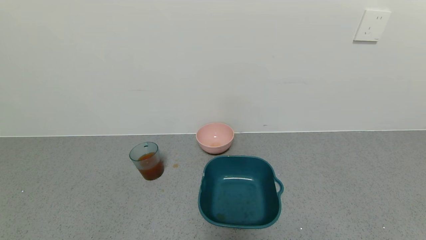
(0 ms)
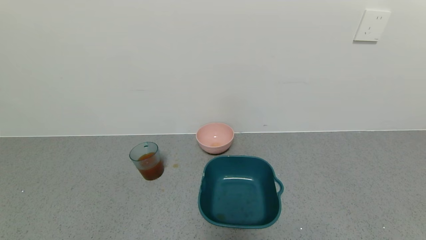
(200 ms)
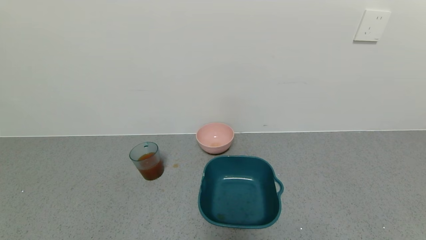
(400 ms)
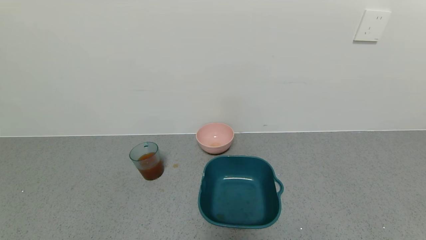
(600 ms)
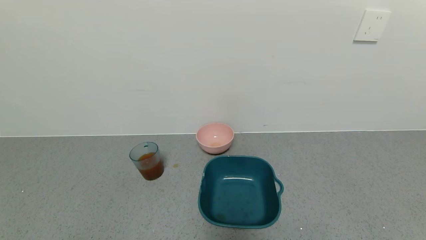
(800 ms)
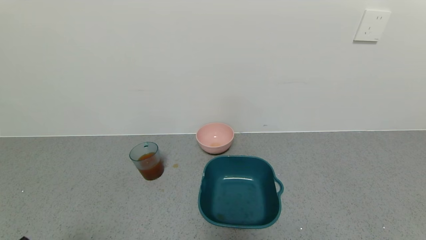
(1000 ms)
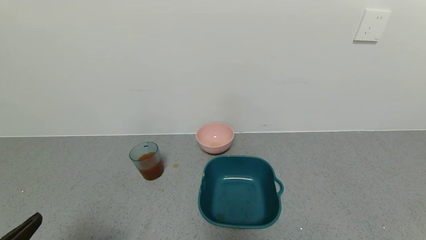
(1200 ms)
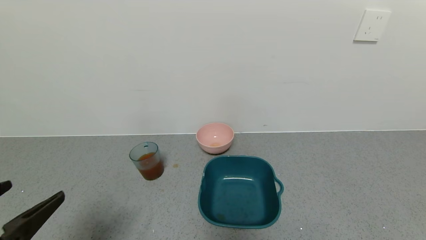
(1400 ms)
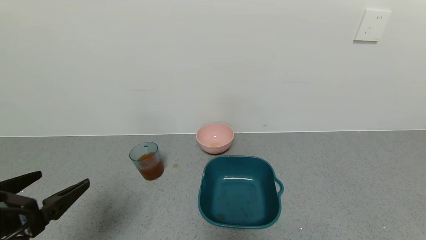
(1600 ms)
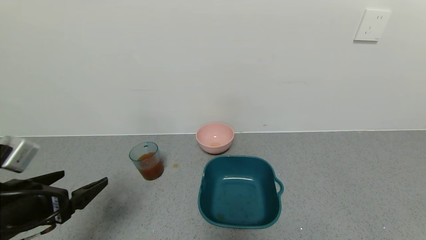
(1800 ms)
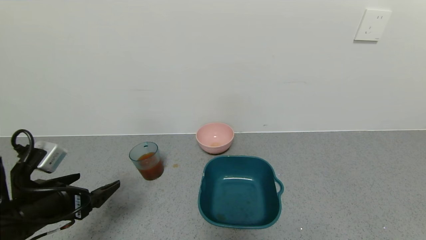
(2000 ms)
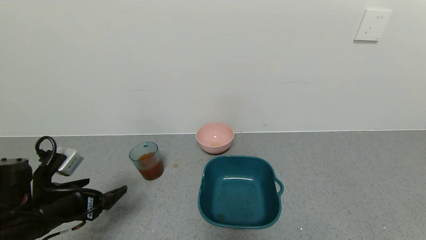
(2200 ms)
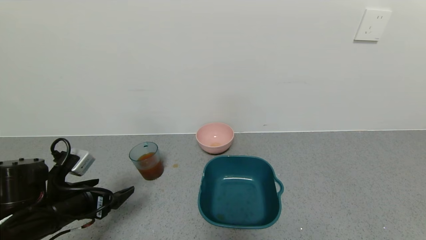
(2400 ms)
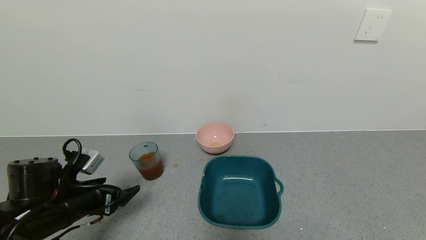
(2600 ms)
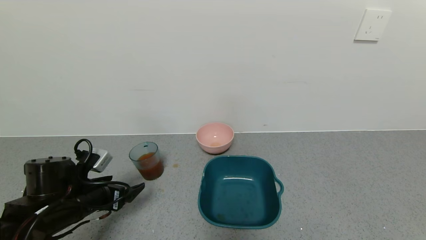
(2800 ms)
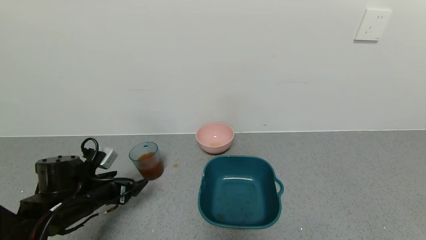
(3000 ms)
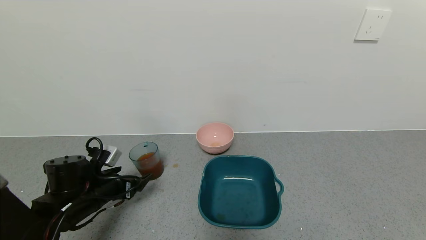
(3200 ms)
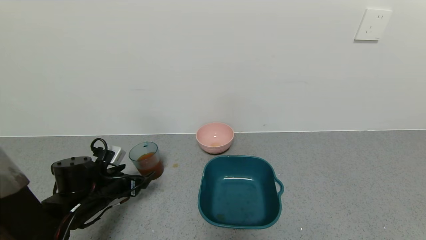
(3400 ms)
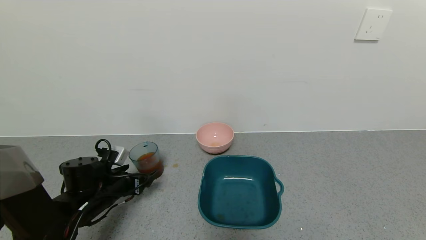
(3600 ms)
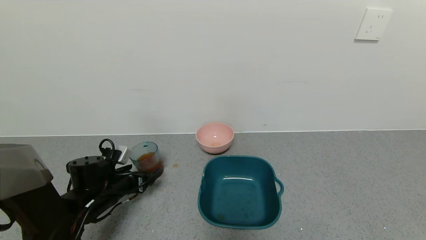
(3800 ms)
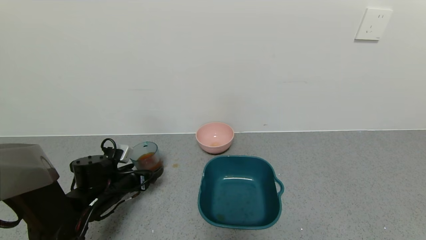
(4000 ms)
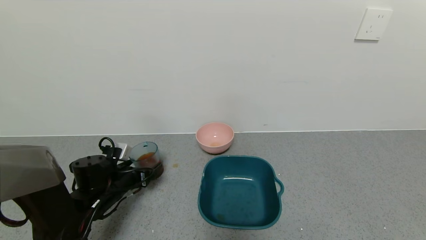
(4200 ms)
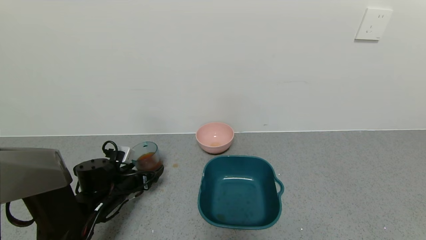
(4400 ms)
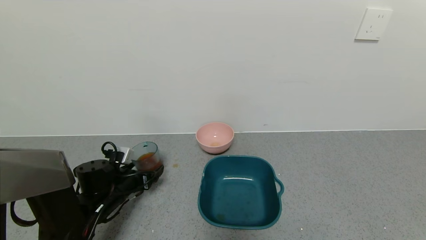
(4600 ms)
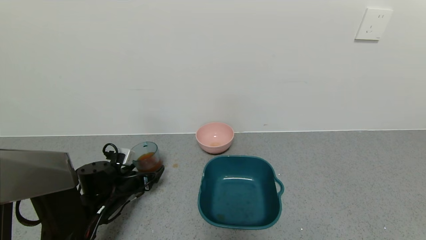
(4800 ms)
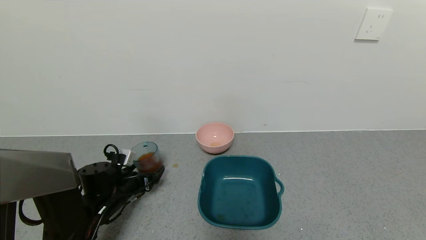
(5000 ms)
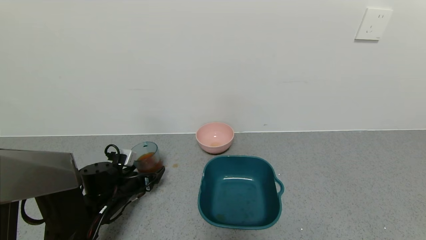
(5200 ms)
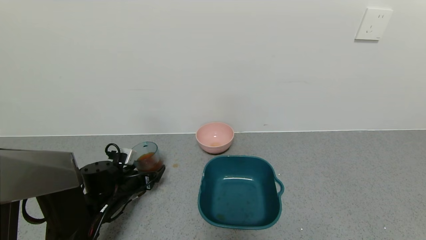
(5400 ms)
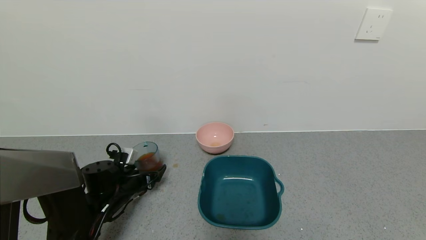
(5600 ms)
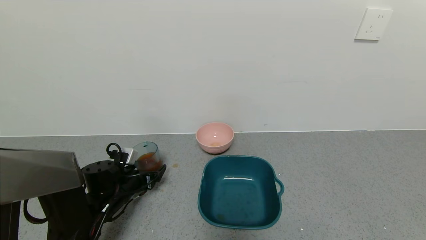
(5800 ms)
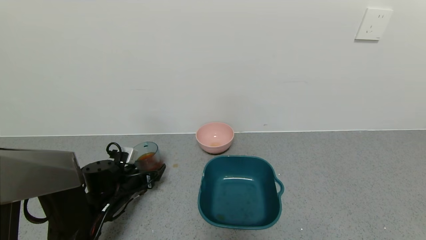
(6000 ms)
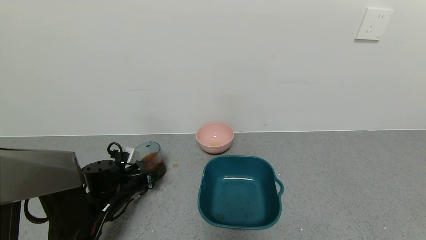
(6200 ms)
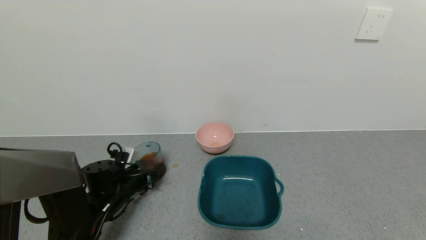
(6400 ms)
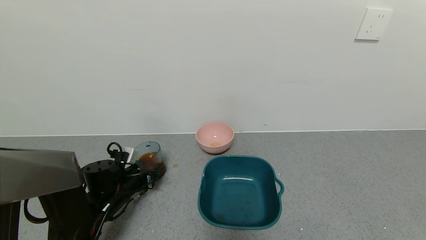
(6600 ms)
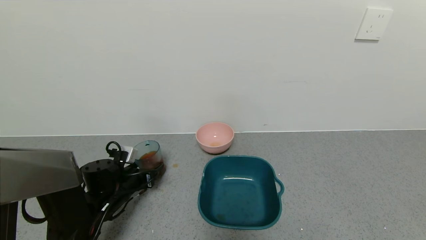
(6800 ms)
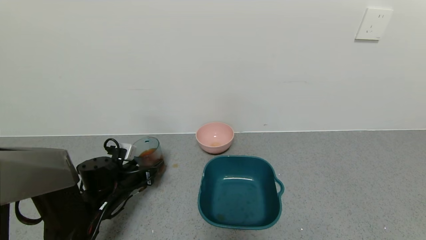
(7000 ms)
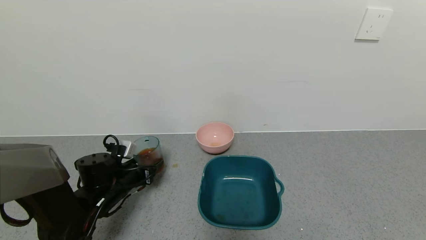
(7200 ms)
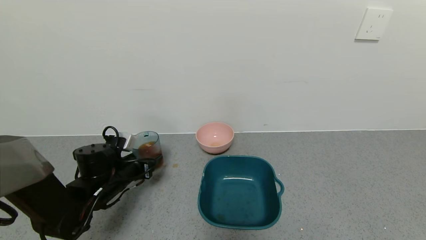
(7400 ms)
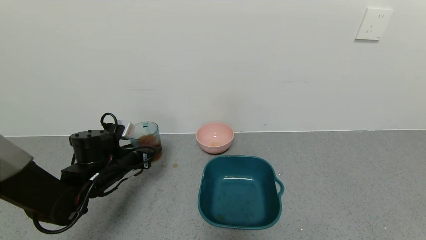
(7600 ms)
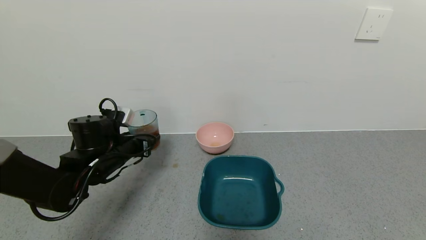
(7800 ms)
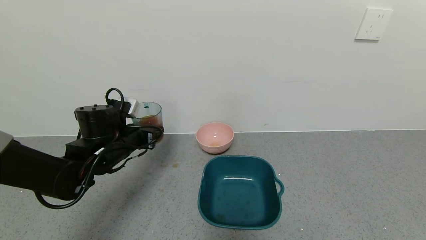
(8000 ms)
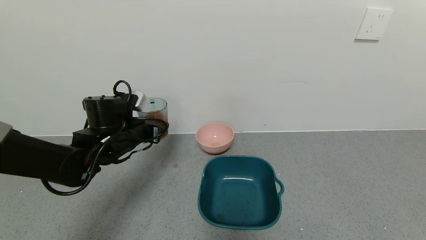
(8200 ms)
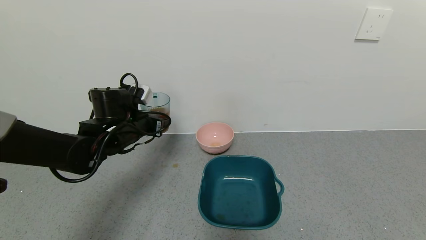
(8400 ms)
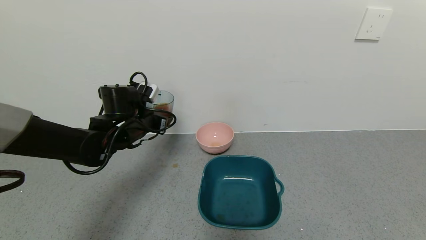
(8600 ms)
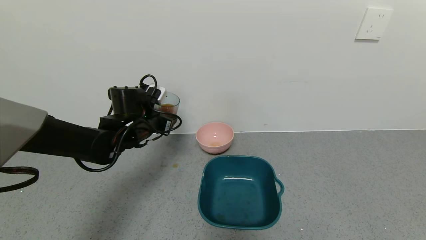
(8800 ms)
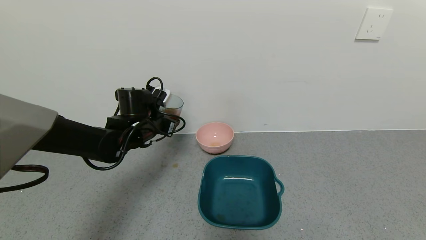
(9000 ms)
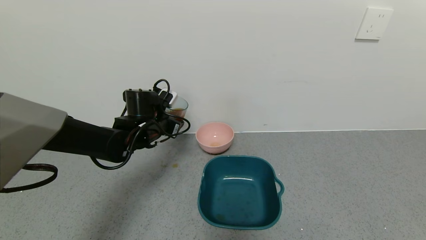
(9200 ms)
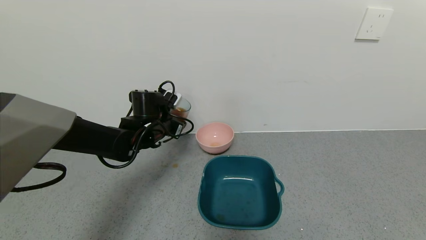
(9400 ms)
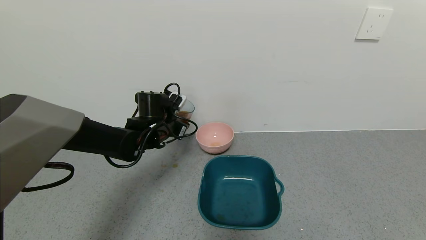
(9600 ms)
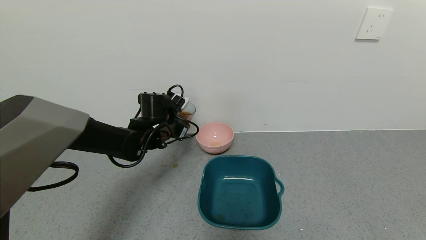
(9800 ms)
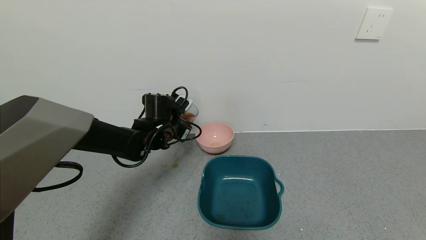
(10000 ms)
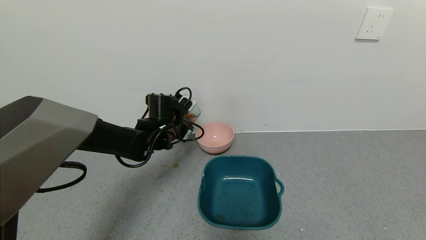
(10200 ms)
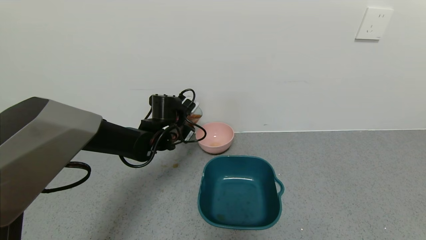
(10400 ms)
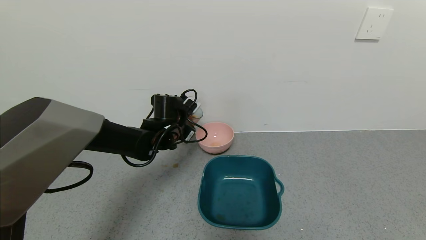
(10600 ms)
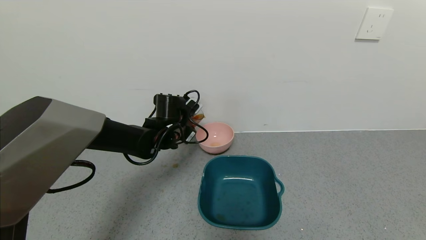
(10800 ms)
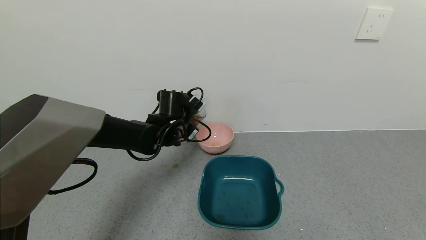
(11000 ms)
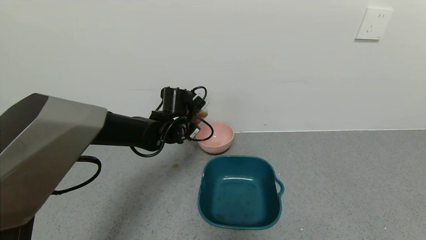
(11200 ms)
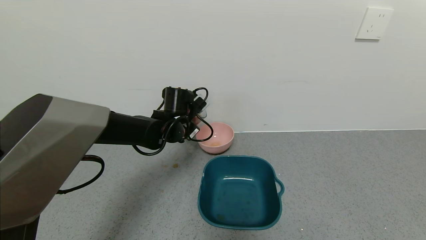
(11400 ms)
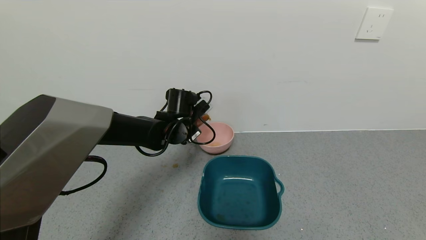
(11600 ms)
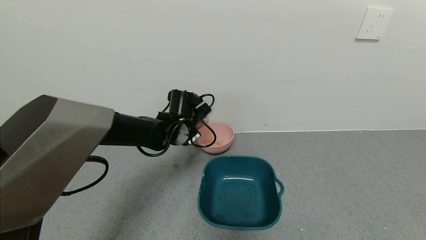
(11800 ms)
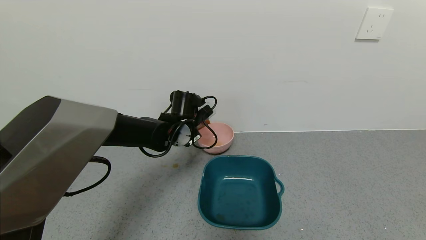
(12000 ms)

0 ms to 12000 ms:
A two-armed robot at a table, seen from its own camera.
Task of the whole recording: use a gripper to pick up the cup and pour the liquid into a bowl or tray.
Step, 6800 ms to 11000 ms: Pick up blue cup filled with tea with left gripper.
0 ms to 1600 ms: The left gripper travels forward and upward by approximately 20 cm.
1600 ms to 3000 ms: The left gripper moves forward and downward, roughly 20 cm.
3000 ms to 4400 ms: The left gripper is displaced forward by about 5 cm.
4400 ms to 6000 ms: There are only small adjustments of the grippers.
6000 ms to 7600 ms: The left gripper moves upward, about 10 cm, and closes its fingers.
7600 ms to 9000 ms: The left gripper moves forward, upward and to the right, some 10 cm.
9000 ms to 10400 ms: The left gripper moves some 5 cm.

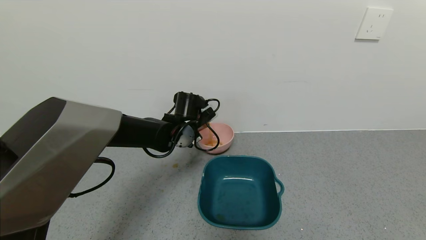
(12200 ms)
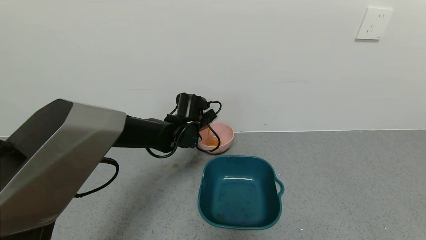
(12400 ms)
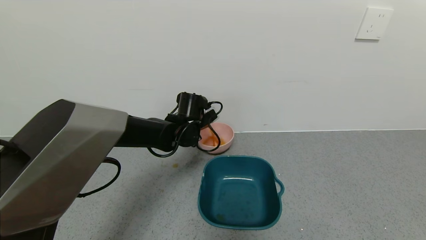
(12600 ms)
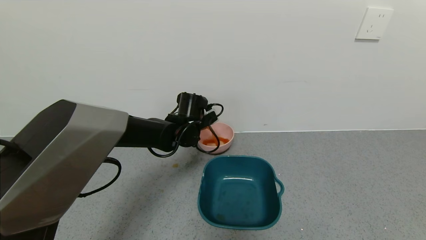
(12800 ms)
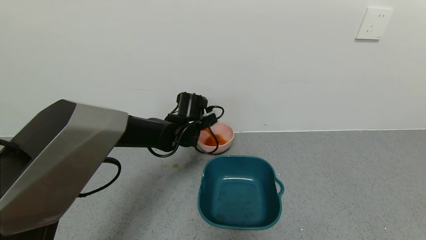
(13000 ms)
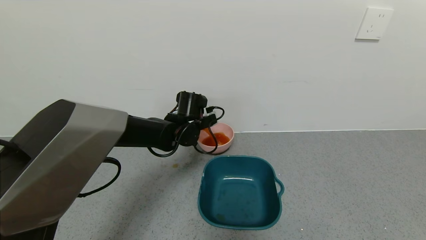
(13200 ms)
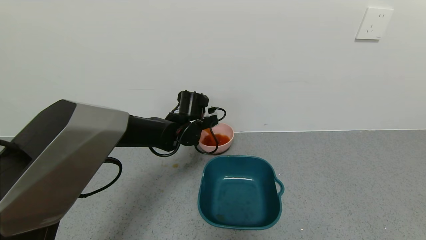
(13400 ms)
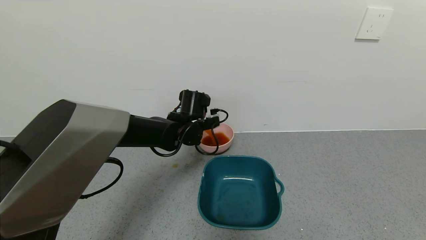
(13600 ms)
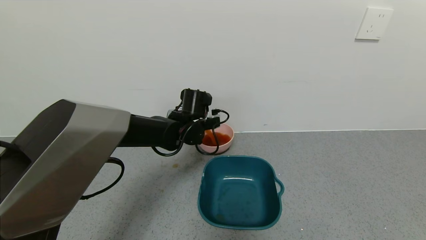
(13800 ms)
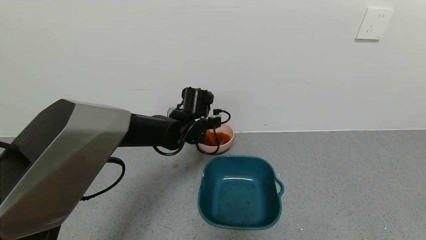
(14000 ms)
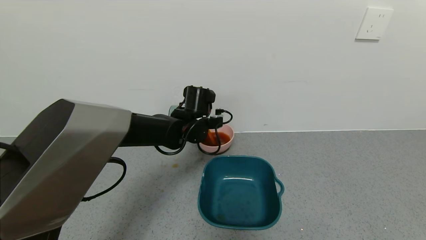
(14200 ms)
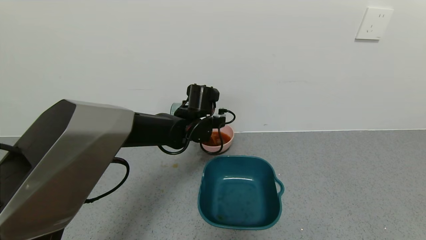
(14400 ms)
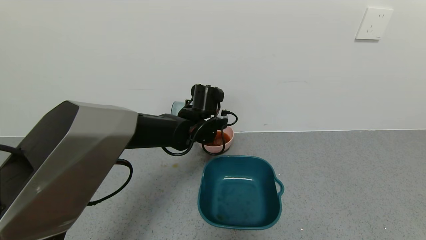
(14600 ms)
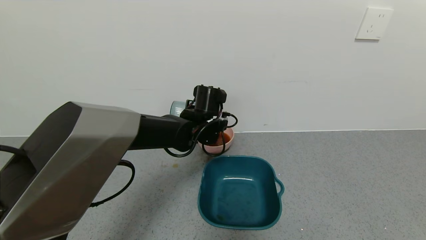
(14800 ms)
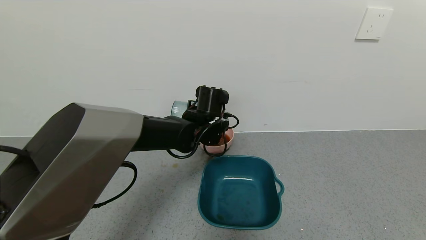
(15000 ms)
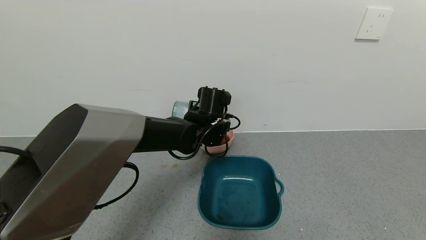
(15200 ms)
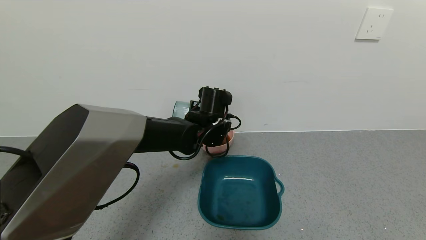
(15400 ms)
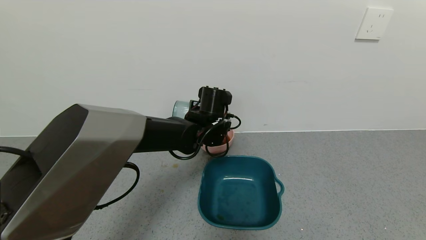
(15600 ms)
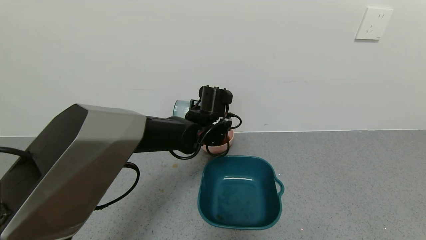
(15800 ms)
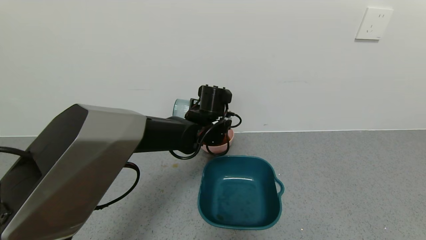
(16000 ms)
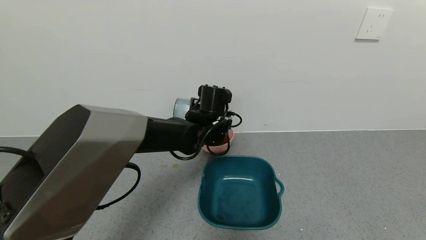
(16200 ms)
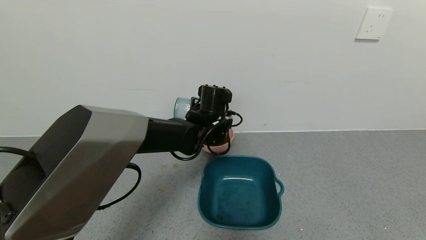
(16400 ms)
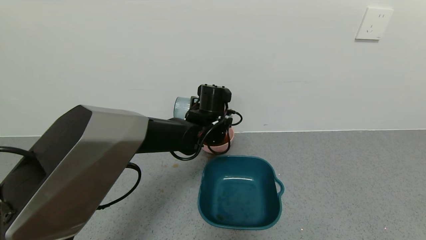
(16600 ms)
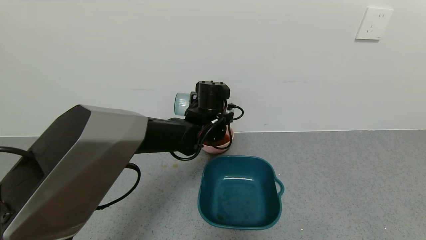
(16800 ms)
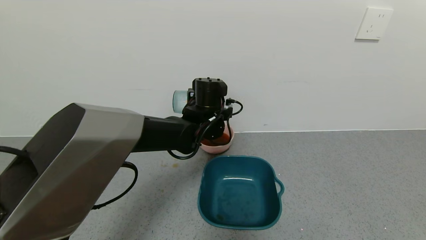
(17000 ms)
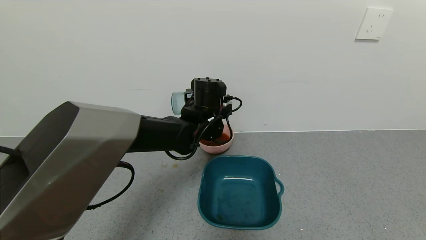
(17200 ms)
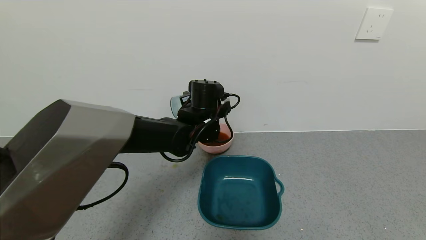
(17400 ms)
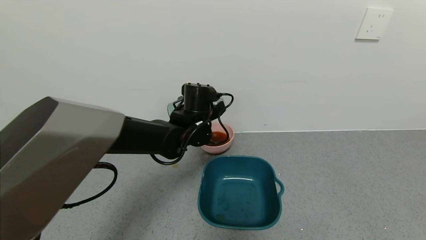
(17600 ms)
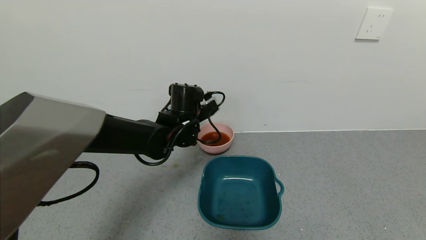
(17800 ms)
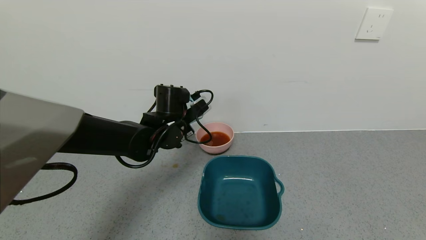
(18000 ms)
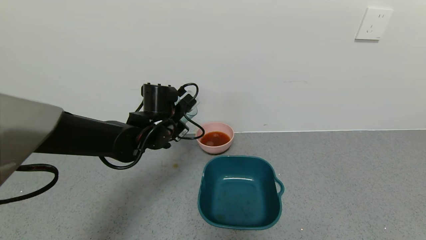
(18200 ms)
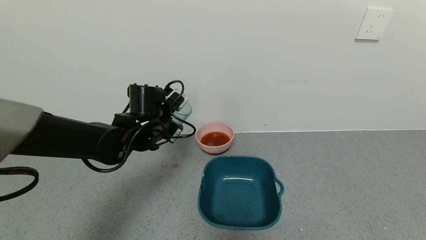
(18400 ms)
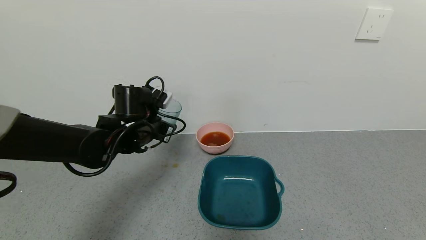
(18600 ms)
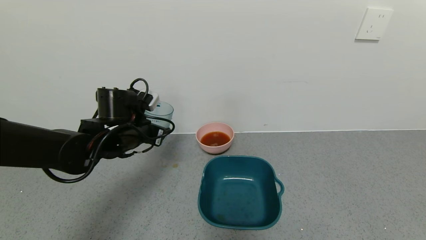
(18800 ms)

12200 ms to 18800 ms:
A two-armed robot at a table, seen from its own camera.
Task of the whole recording: use a gripper to pick up the cup and pour the liquid into a bowl or tray.
Step, 12200 ms to 17400 ms: Pour the tea into the pink bowl with left gripper.
13800 ms to 17200 ms: The grippers make only small movements.
17200 ms to 18800 ms: The left gripper shifts approximately 15 cm to the left.
